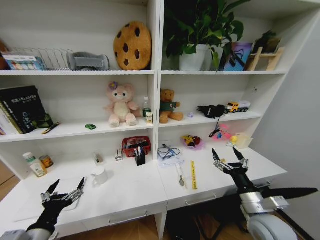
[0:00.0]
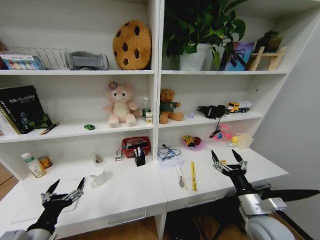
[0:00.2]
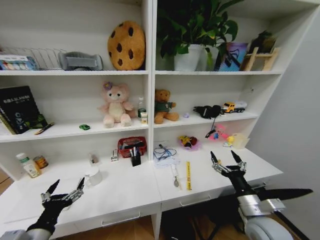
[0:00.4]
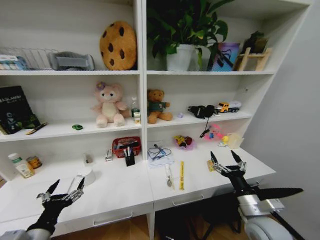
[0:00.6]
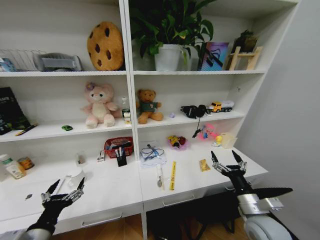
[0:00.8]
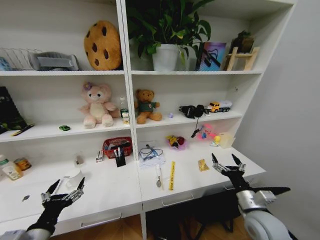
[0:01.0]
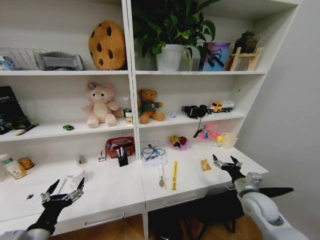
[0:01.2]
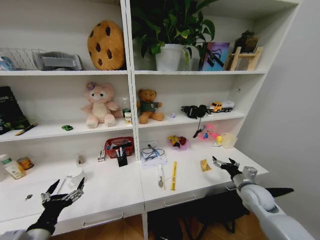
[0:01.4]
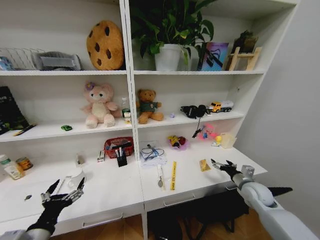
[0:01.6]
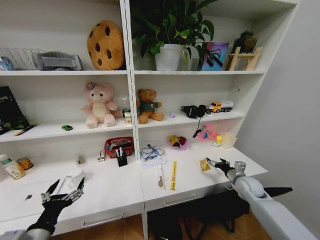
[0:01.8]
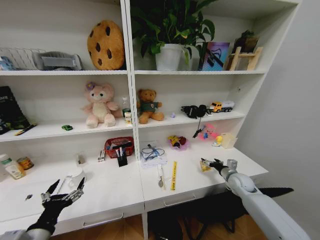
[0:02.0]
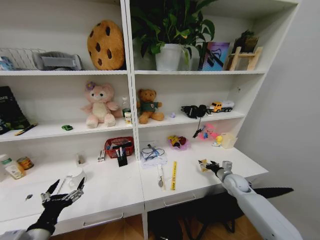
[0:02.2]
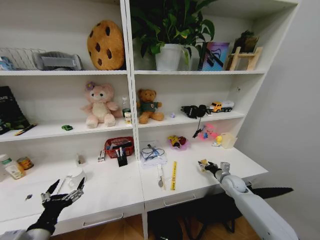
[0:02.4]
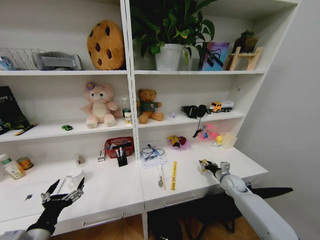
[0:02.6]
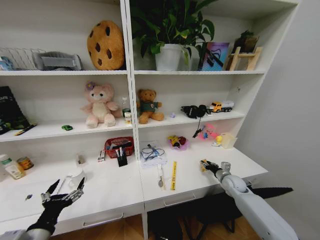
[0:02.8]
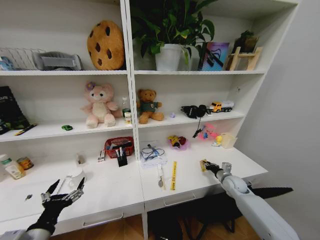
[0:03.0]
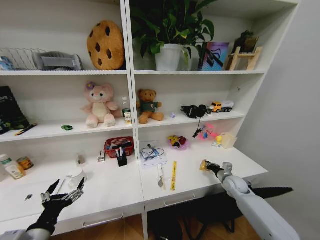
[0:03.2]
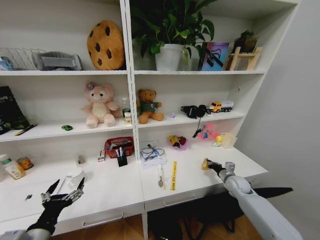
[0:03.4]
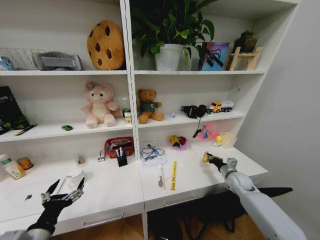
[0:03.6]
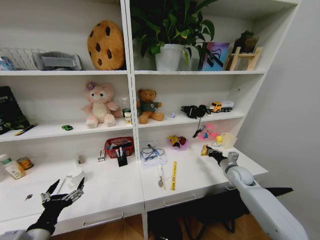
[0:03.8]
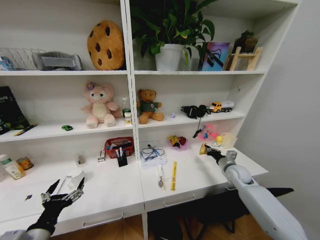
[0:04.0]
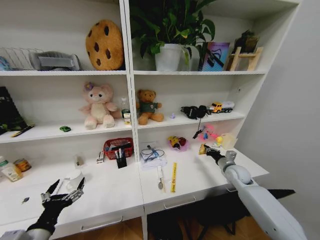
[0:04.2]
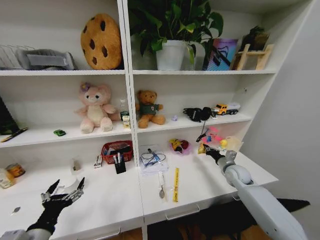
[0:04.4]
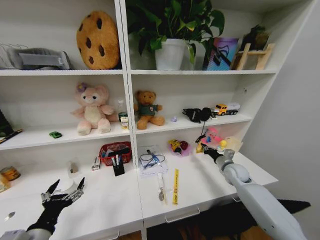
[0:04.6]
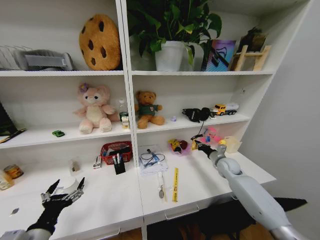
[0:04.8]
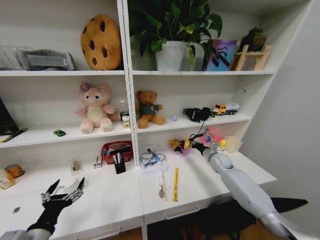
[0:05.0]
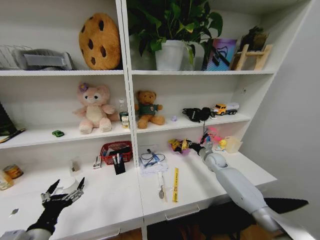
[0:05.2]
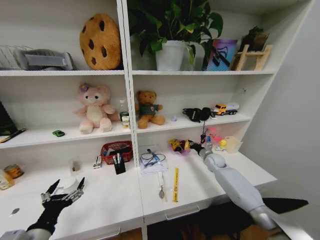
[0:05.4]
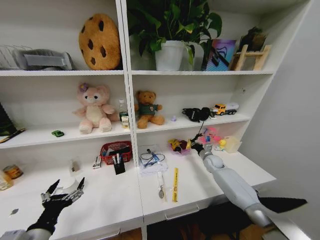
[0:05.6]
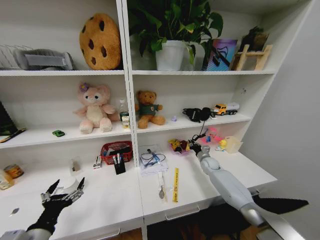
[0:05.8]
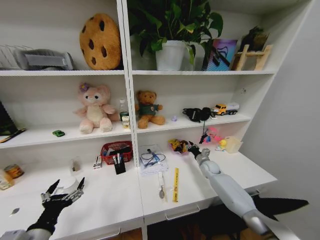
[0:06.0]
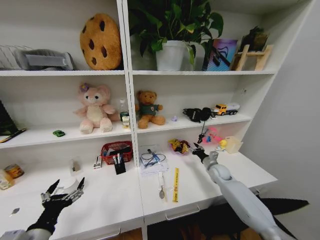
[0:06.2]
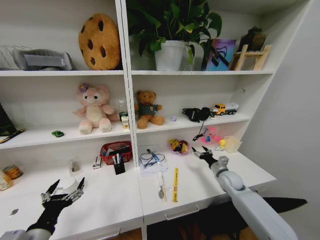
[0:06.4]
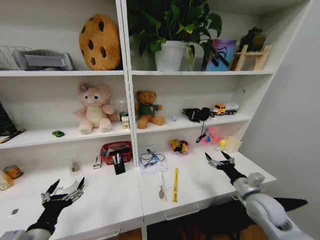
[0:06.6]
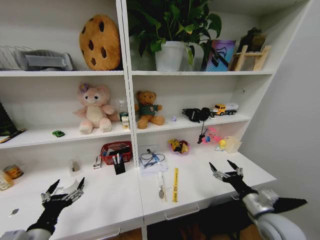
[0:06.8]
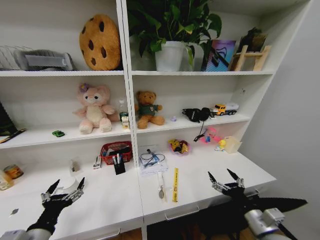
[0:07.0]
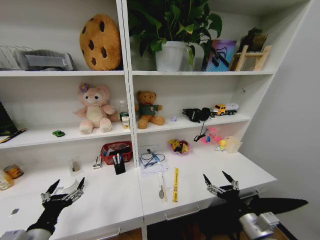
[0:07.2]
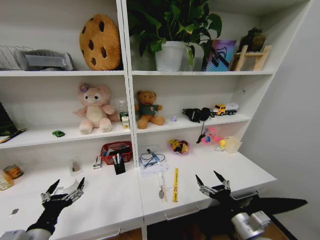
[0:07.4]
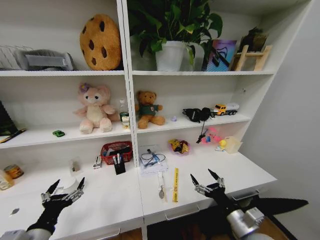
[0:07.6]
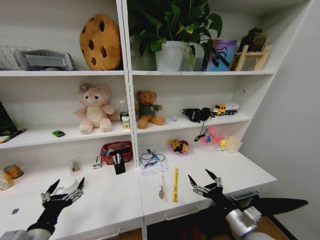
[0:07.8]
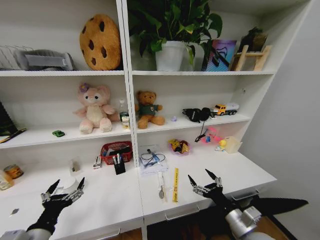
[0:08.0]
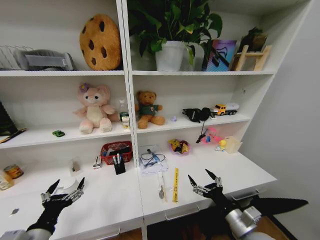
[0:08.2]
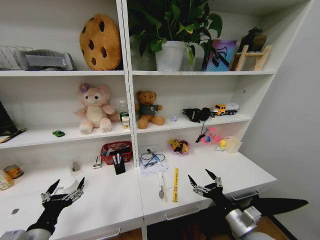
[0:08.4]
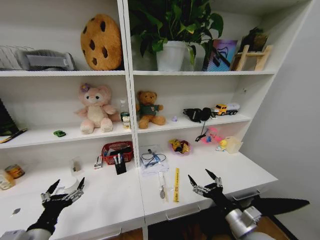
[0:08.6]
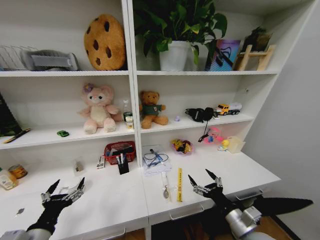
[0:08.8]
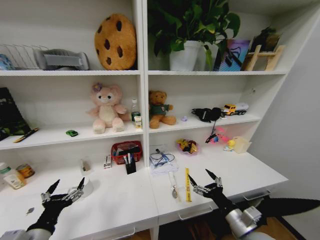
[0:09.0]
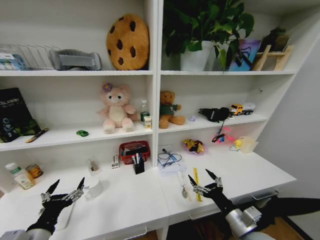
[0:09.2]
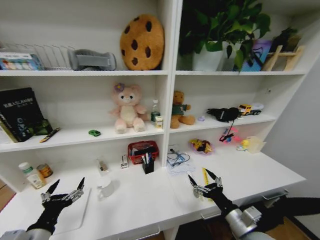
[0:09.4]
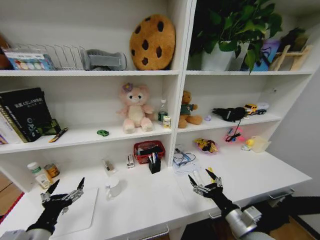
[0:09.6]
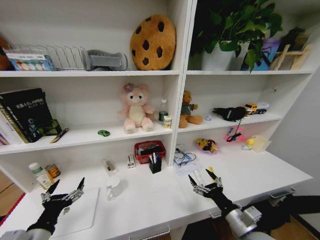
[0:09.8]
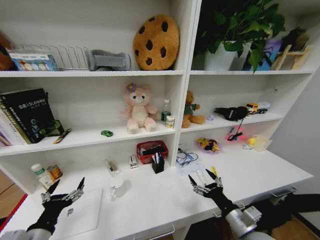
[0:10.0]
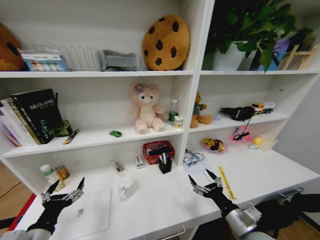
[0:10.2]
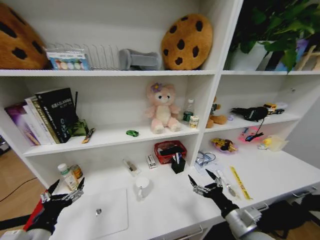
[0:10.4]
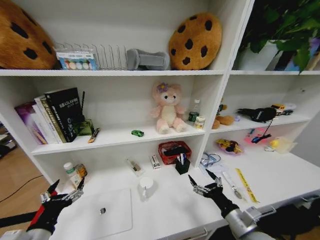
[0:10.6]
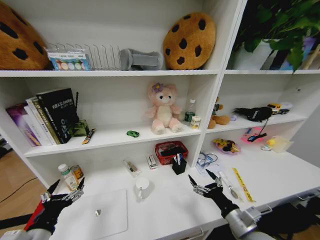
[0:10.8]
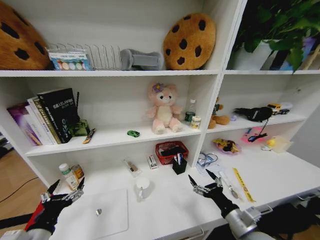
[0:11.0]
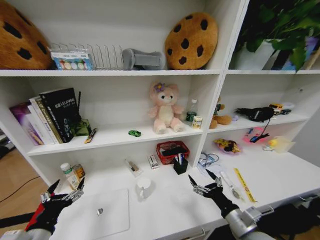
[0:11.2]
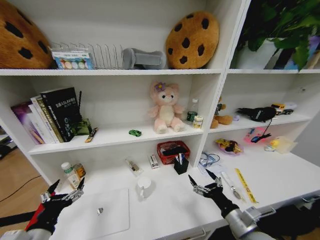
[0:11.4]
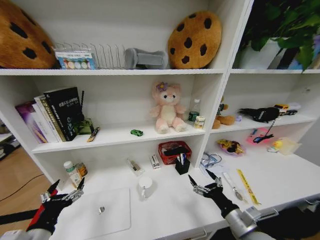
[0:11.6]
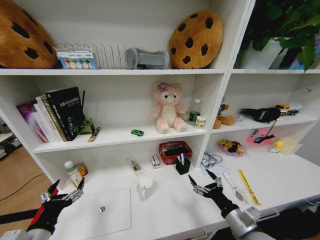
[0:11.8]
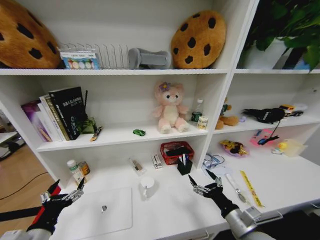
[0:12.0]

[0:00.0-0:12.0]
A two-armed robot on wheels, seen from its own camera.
Task of the whole recording: Organize the objects on the table.
0:00.0 to 0:01.6: The right gripper shifts roughly 15 cm forward and to the right.
0:01.6 to 0:03.0: The right gripper heads forward and downward, covering approximately 10 cm, and closes its fingers.
0:03.0 to 0:04.4: The right gripper moves upward, approximately 5 cm.
0:04.4 to 0:06.0: The right gripper moves forward, downward and to the left, about 15 cm, and opens its fingers.
0:06.0 to 0:07.6: The right gripper shifts about 35 cm backward, and opens up.

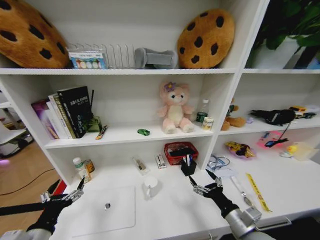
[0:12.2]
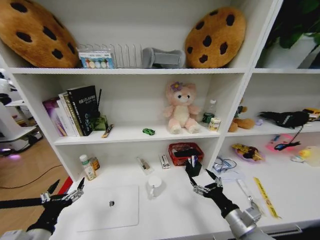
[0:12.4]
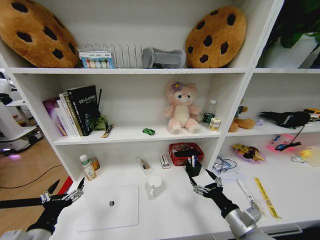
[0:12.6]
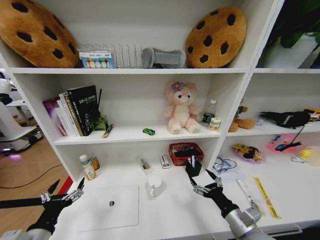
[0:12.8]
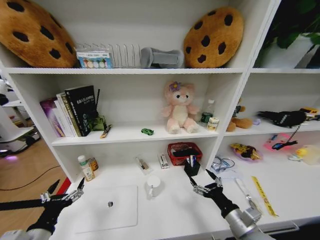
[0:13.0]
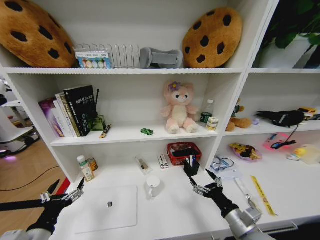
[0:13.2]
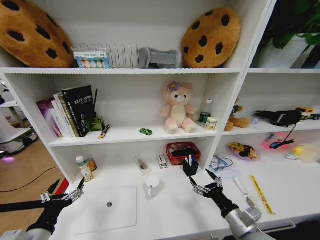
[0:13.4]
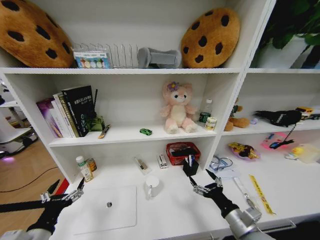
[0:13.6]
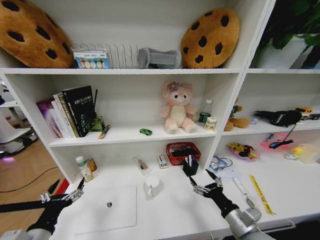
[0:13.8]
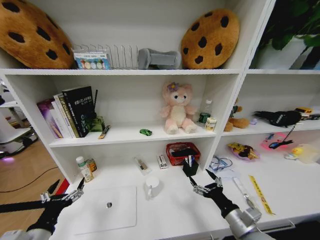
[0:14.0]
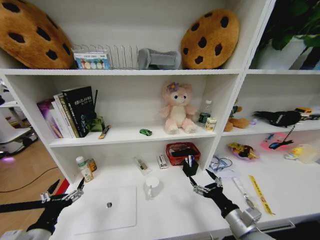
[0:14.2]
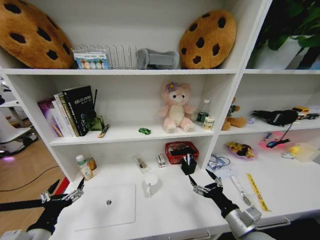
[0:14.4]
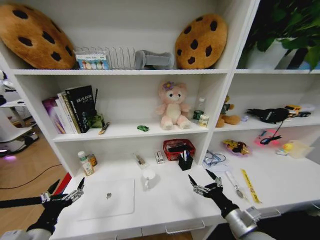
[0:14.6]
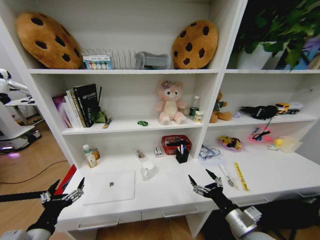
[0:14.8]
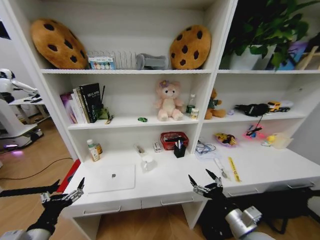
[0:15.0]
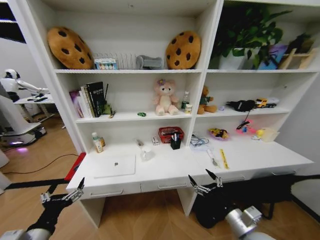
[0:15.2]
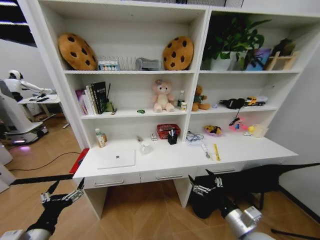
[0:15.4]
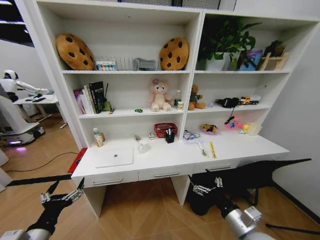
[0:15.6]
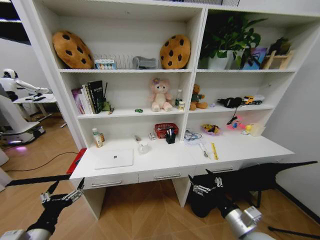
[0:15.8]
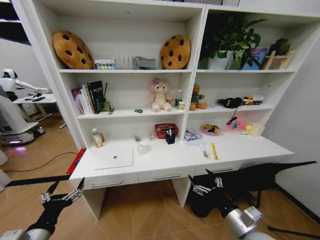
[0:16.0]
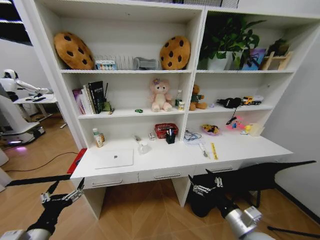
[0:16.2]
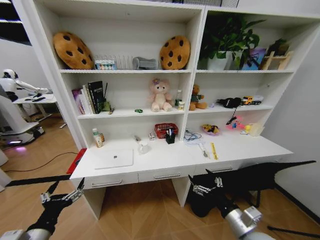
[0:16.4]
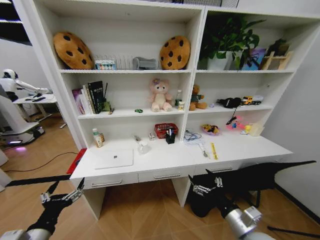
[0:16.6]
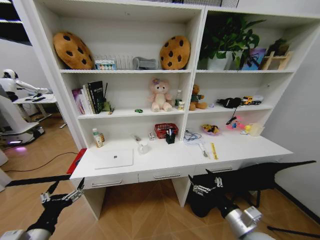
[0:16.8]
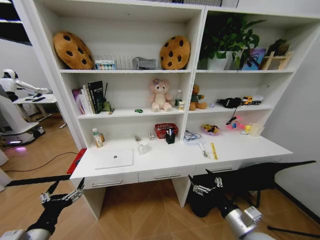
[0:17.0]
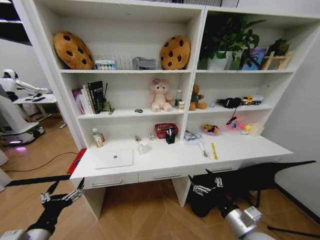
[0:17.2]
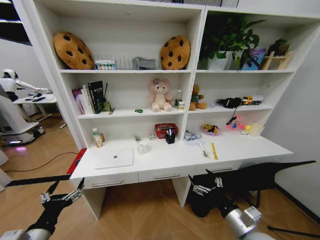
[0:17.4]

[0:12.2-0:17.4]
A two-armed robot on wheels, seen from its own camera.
Task of the whole recording: Organize the objects on the table.
0:12.2 to 0:14.0: Both grippers stay about where they are.
0:15.6 to 0:17.4: Both grippers stay put.
